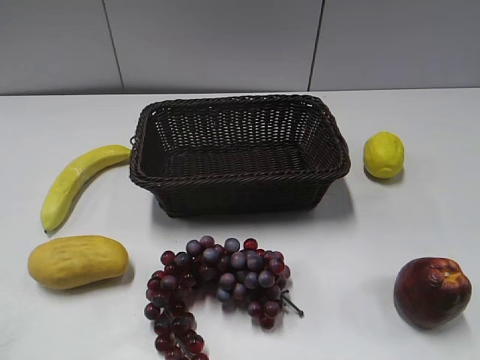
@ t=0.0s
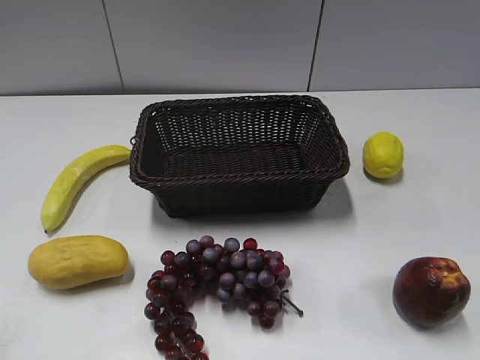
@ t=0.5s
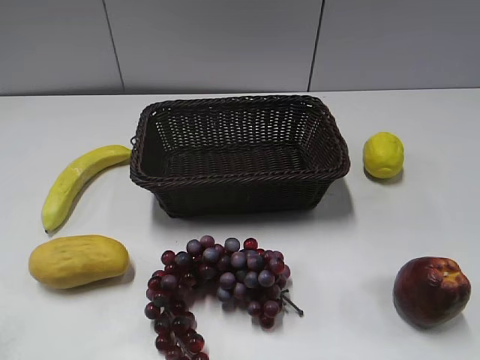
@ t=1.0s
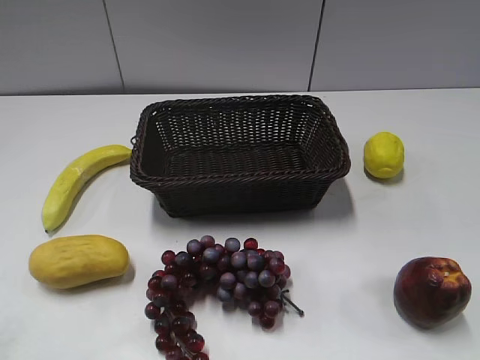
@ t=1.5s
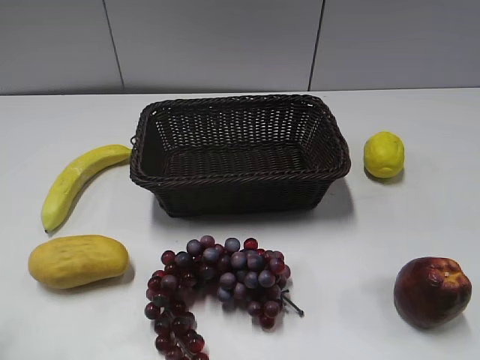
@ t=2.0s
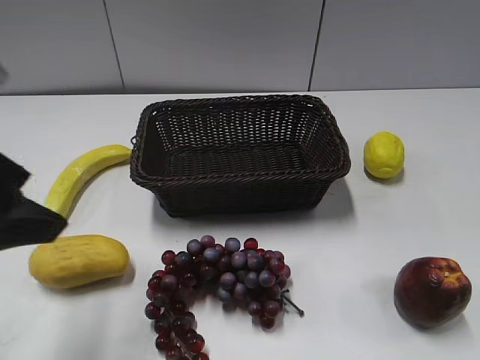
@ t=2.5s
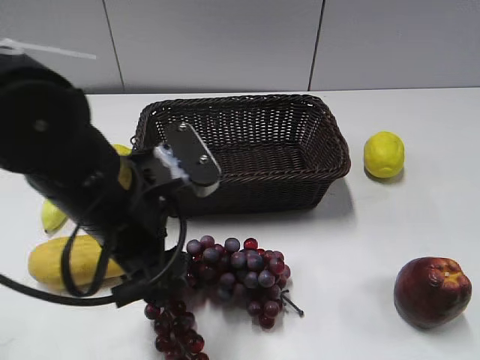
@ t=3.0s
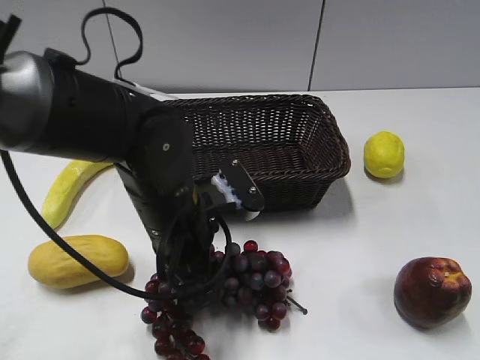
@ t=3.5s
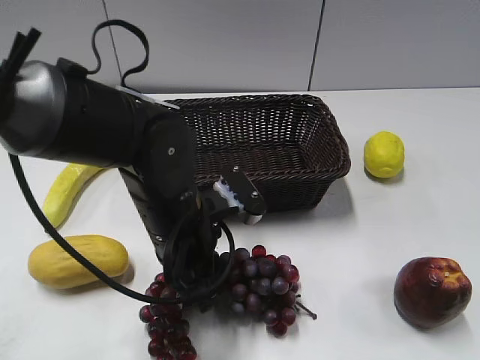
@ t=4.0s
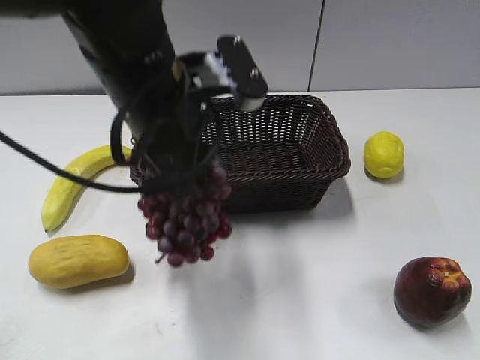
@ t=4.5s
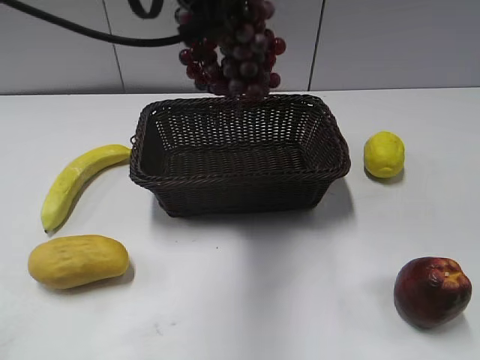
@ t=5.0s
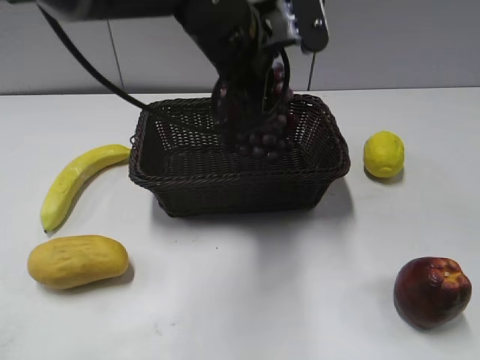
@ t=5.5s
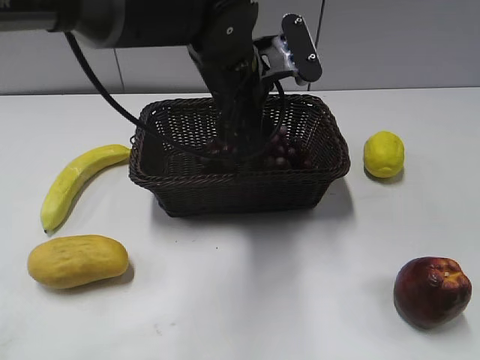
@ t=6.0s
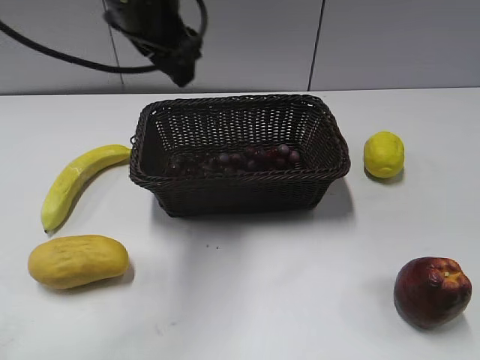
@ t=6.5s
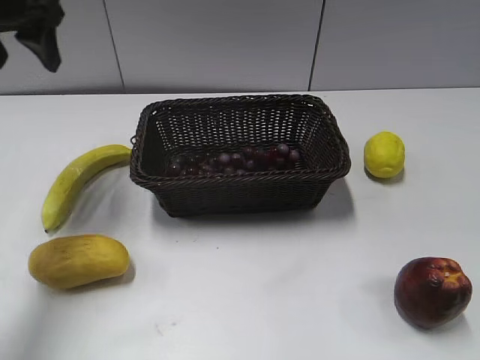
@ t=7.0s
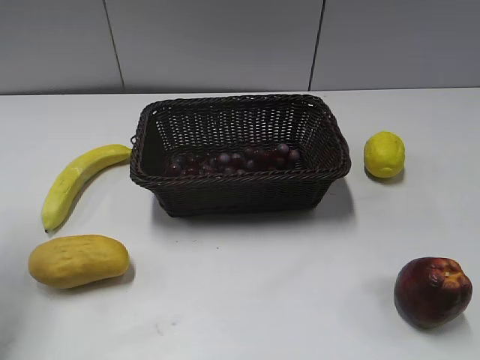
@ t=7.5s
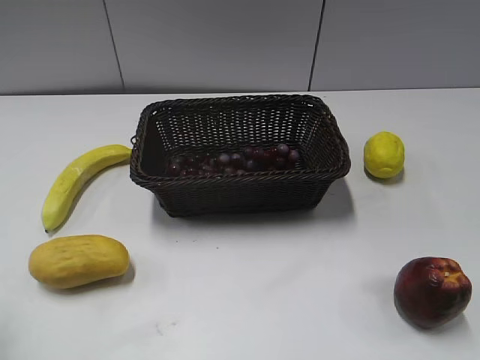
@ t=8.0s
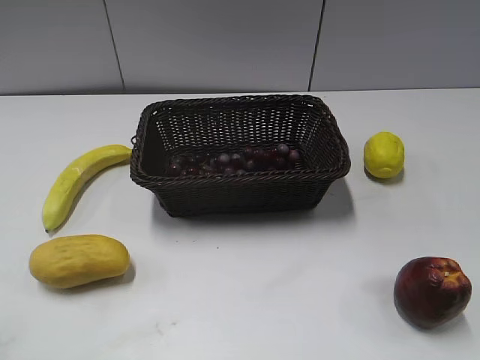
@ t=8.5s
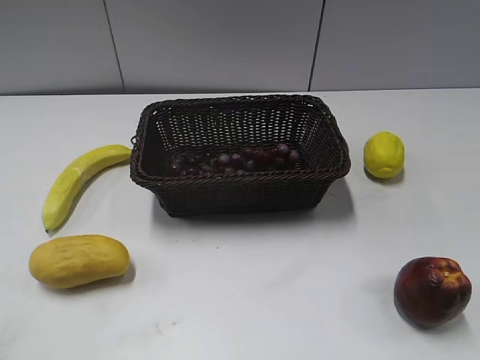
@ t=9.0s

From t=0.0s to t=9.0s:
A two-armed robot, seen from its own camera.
Step, from t=2.5s to t=3.5s: Grasp the grape with left gripper.
Step, from t=4.0s to t=6.0s: Place the grape in the basket with left gripper.
From t=2.0s to t=4.5s: The left gripper heads to the right and forward, covering some 30 cm, and closes its fingers.
From t=4.5s to t=7.0s: The left gripper heads to the left and forward, covering roughly 25 cm, and opens.
From t=7.0s to t=9.0s: The left gripper moves backward, some 40 cm.

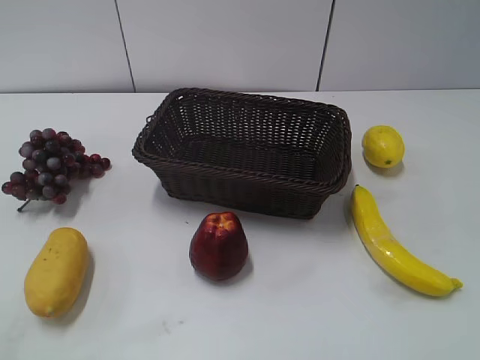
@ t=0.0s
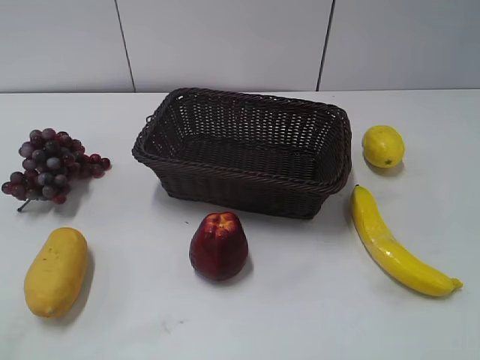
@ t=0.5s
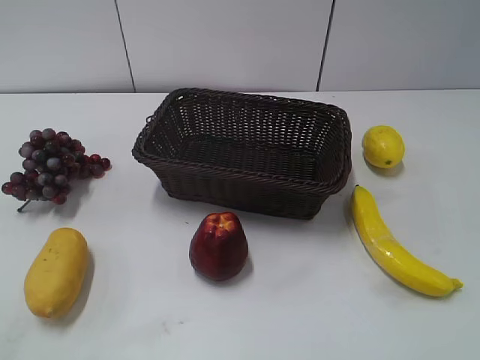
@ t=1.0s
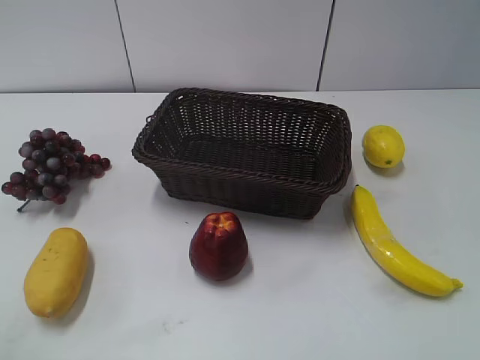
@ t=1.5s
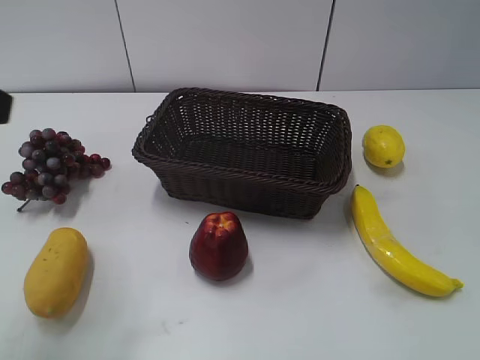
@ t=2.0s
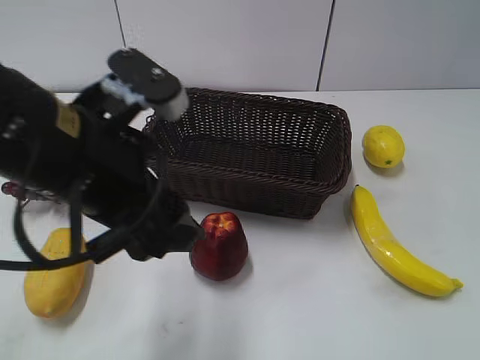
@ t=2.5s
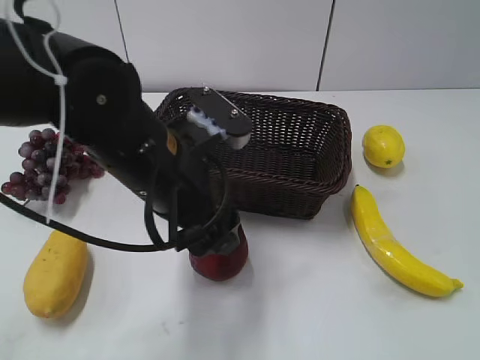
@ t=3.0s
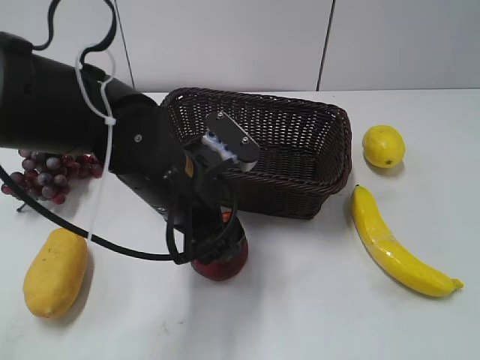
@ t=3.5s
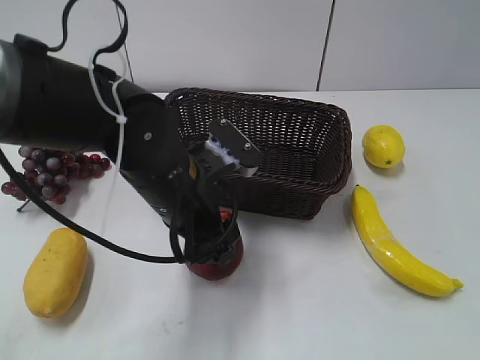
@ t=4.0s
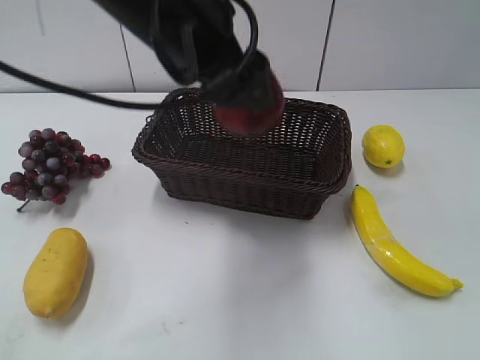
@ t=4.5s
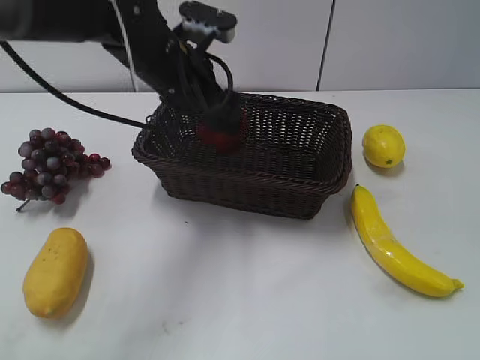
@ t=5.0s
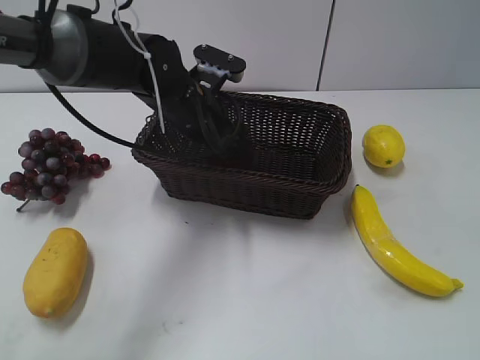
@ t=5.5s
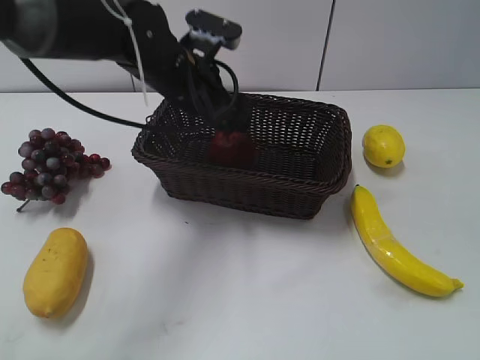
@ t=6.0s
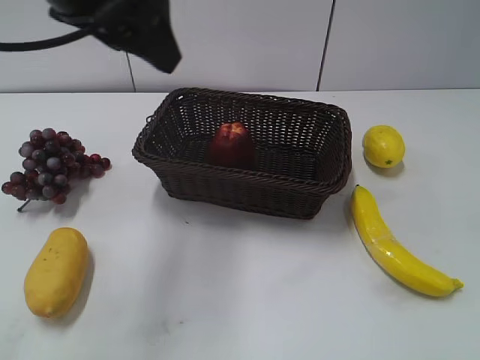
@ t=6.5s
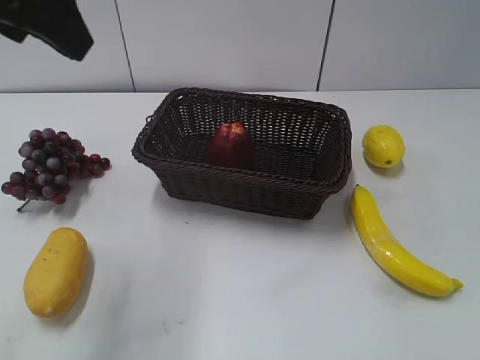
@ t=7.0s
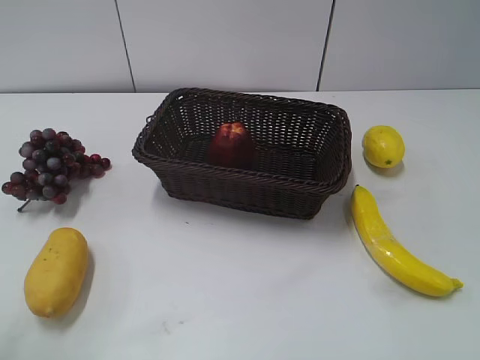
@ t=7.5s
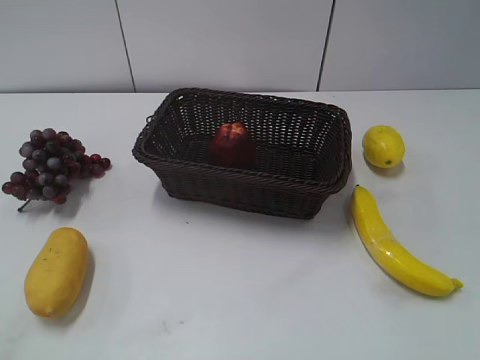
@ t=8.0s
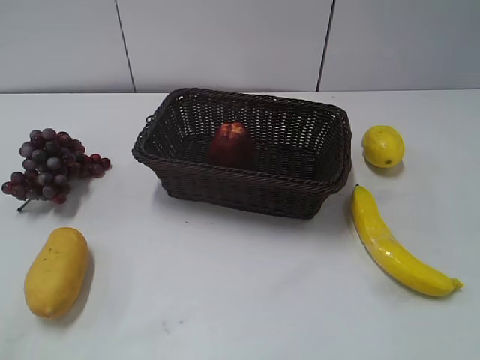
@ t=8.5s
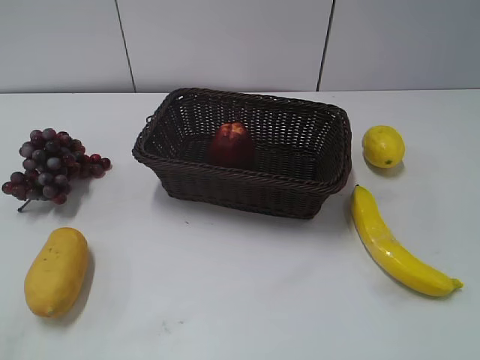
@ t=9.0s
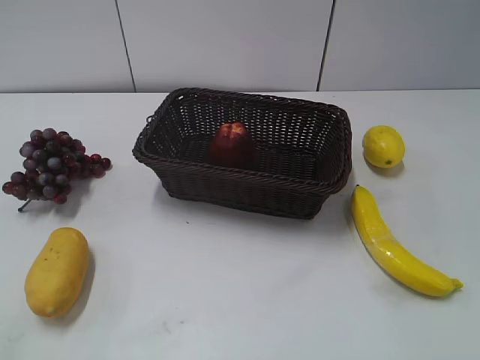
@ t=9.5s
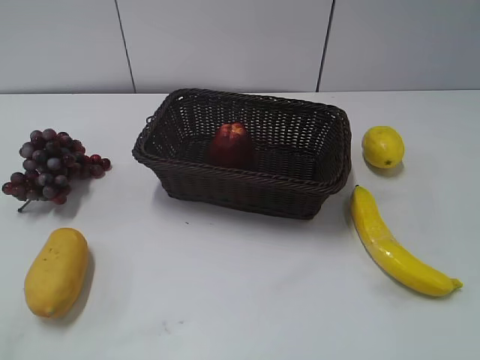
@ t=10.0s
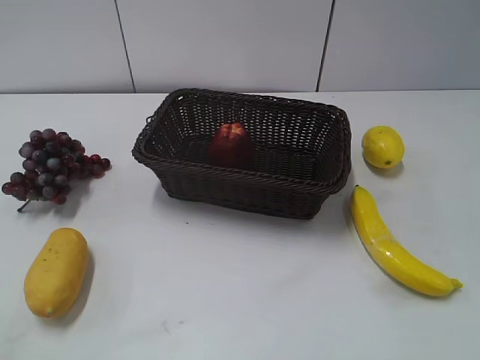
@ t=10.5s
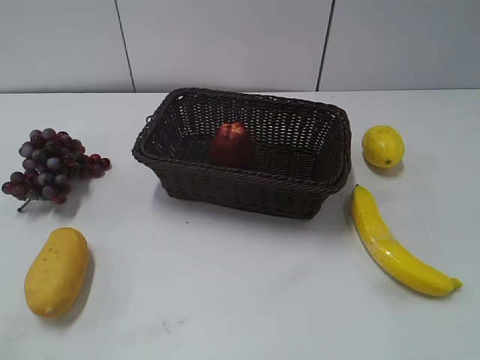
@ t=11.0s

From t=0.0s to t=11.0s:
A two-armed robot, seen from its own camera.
Step, from t=2.0s to t=3.5s: Grasp the apple with left gripper.
Step, from t=4.0s to t=5.5s: Place the apple in the basket with left gripper.
From t=2.0s to t=3.5s: The left gripper shifts about 30 cm to the right, downward and forward, and opens.
From t=3.5s to t=5.5s: The left gripper is displaced forward by some 15 cm, travels upward and back again, roughly 15 cm each way, and closes.
From t=5.5s to t=7.5s: The left gripper moves backward, to the left and upward, about 35 cm, and opens and closes again.
